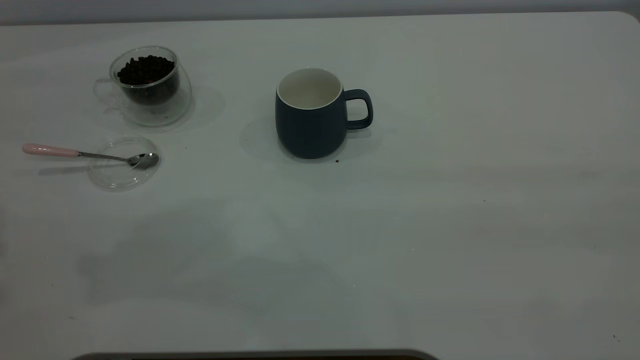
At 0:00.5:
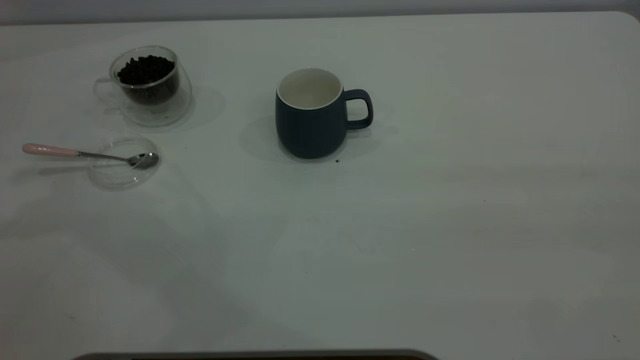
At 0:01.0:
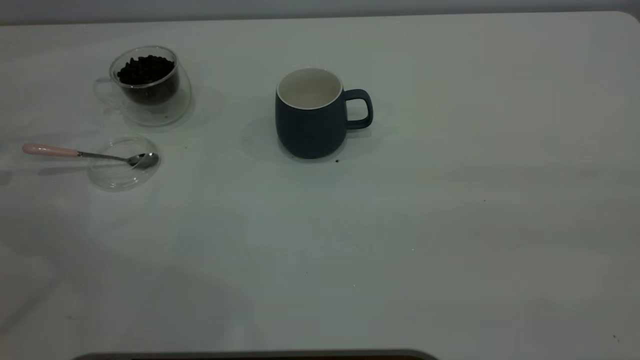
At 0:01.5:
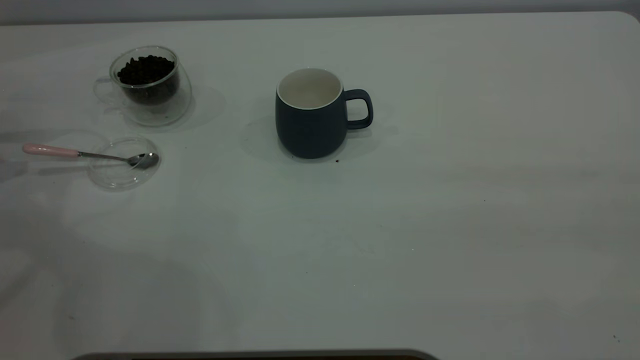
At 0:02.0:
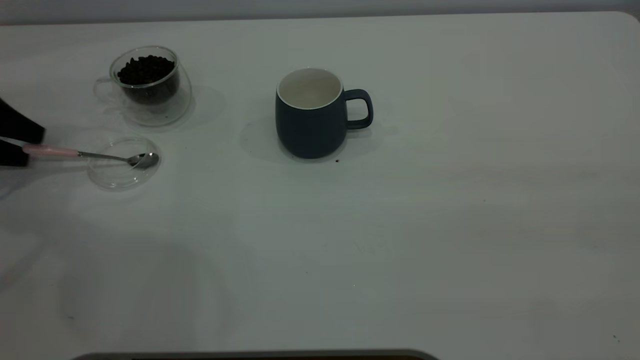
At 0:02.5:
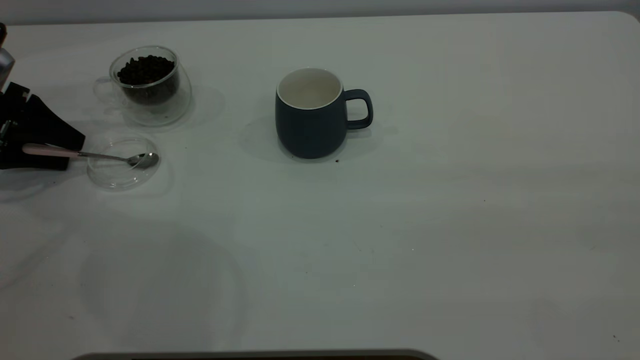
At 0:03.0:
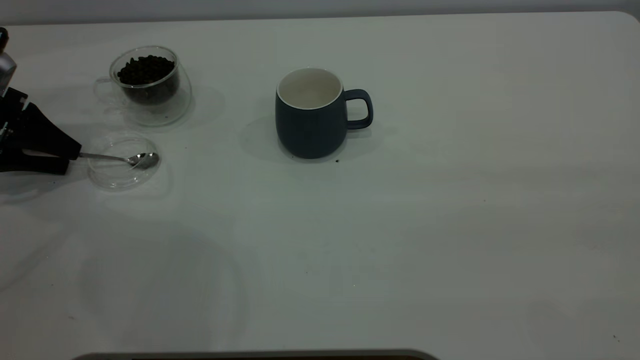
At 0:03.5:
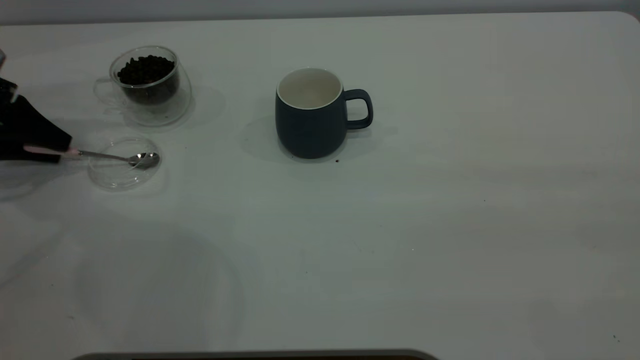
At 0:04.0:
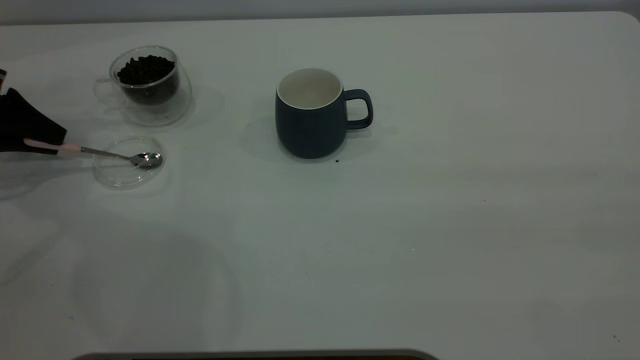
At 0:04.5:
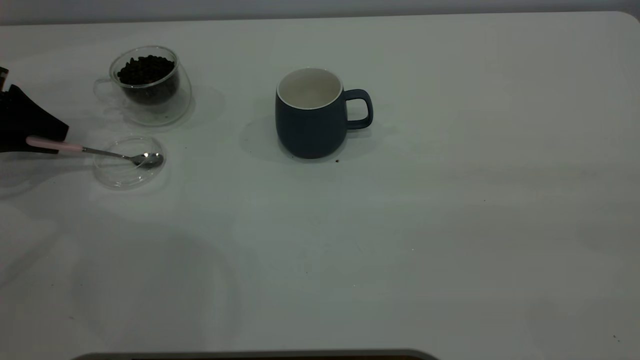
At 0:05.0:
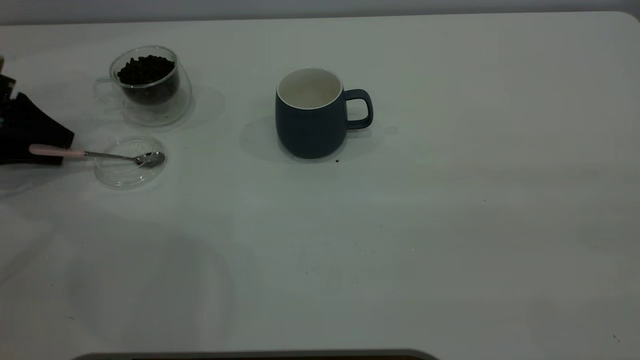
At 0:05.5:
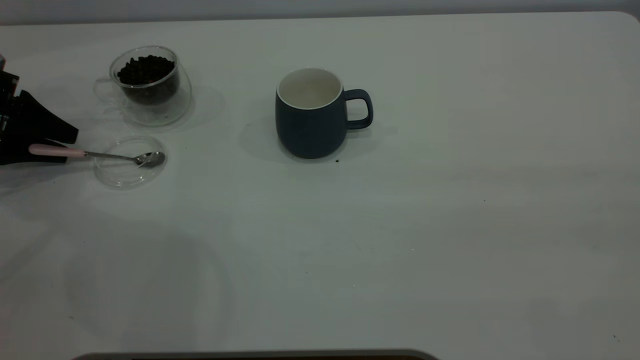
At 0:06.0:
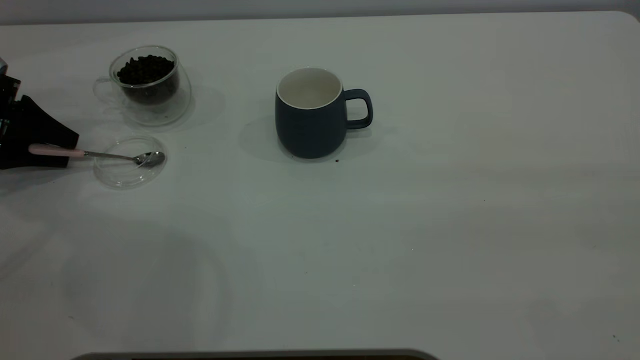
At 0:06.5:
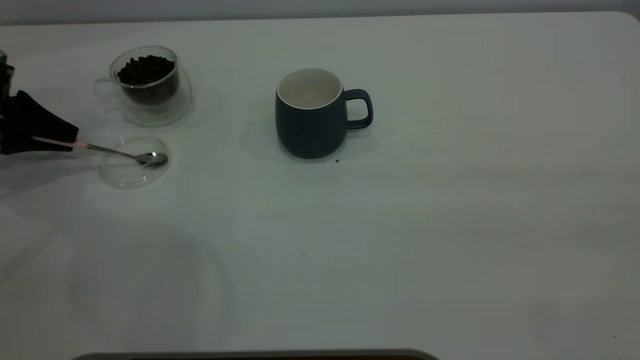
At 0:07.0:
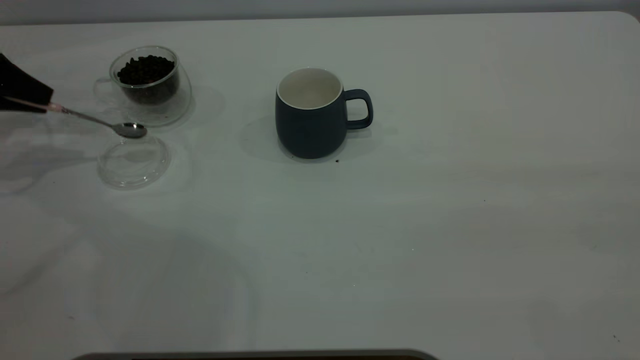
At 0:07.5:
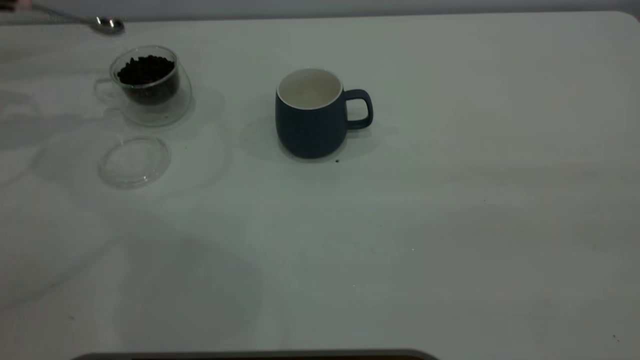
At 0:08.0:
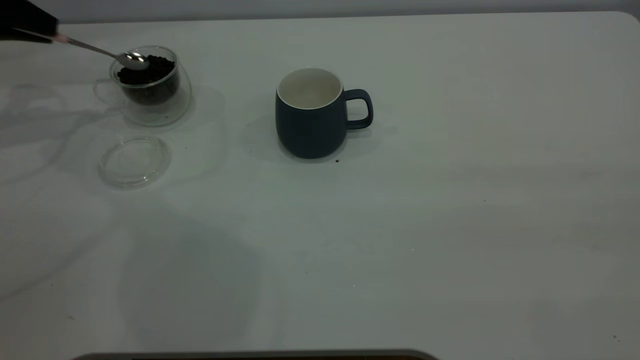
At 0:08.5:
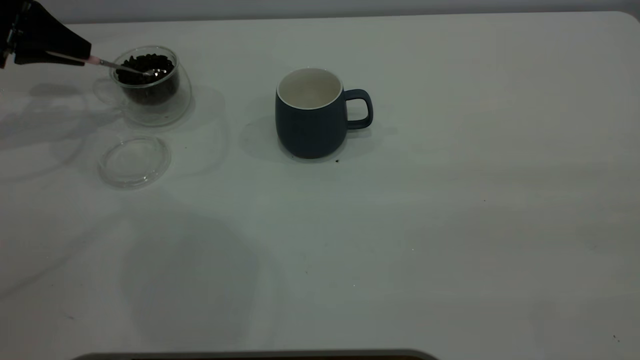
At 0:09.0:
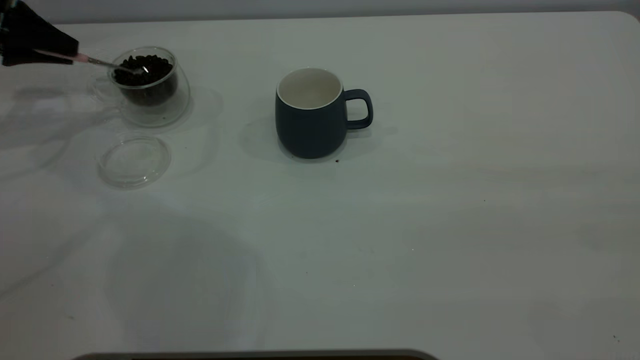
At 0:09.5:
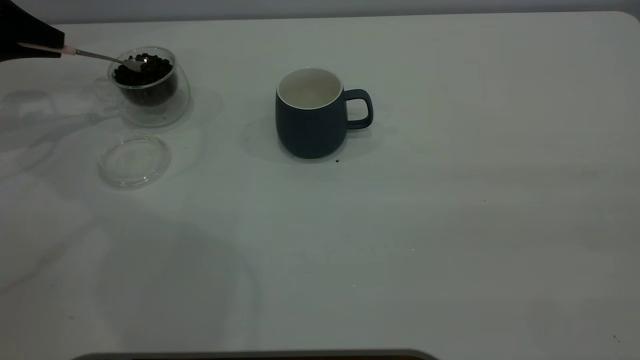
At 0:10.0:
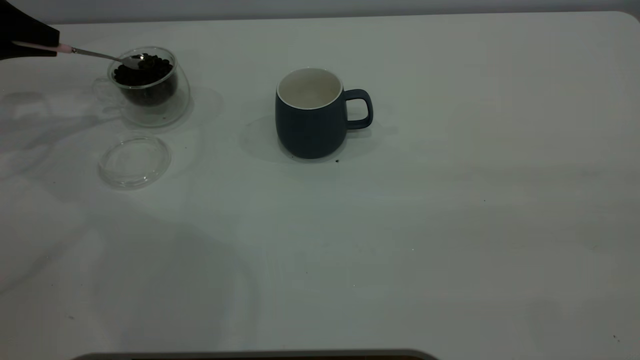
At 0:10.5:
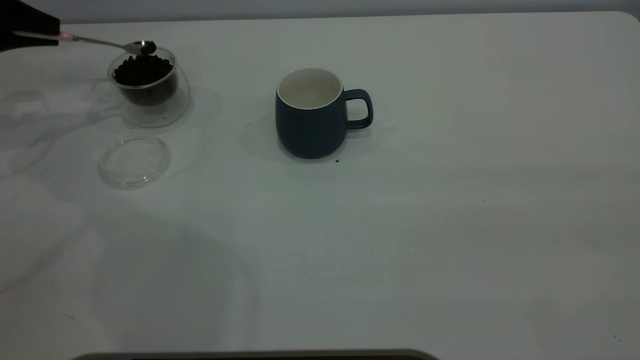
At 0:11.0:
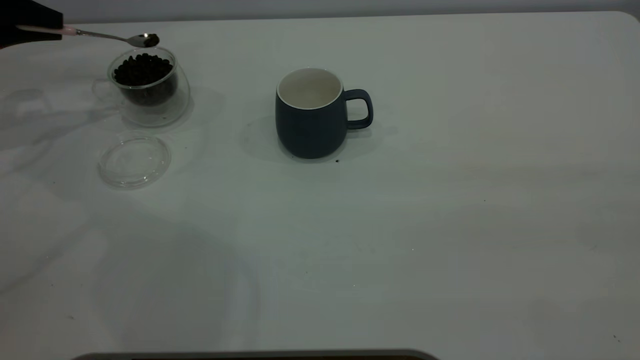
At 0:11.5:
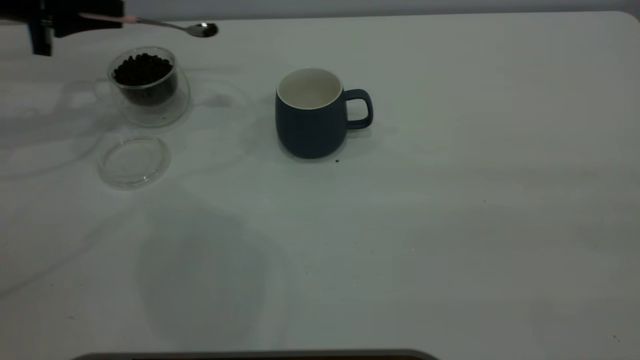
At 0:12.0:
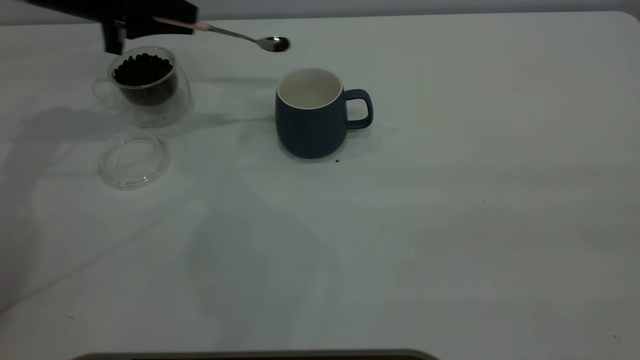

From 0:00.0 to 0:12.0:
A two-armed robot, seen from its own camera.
Task of the whole recording: the right gripper place the grey cup in the center of the table, the left gripper take the pink spoon from the cup lid and scoop out the coffee beans from the coffee cup and put them into the grey cup, the left gripper put the spoon back into the cup lid.
Step, from 0:00.0 to 0:07.0: Pick up the spoon.
From 0:00.0 to 0:02.0: The left gripper moves downward and forward, about 30 cm.
From 0:02.0 to 0:04.0: The left gripper closes up.
From 0:04.0 to 0:06.0: The left gripper opens.
From 0:06.0 to 0:08.0: The left gripper goes approximately 15 cm upward and forward, and closes up.
From 0:08.0 to 0:10.0: There are only small adjustments of the grippers.
From 0:10.0 to 0:12.0: The left gripper travels to the right by roughly 15 cm.

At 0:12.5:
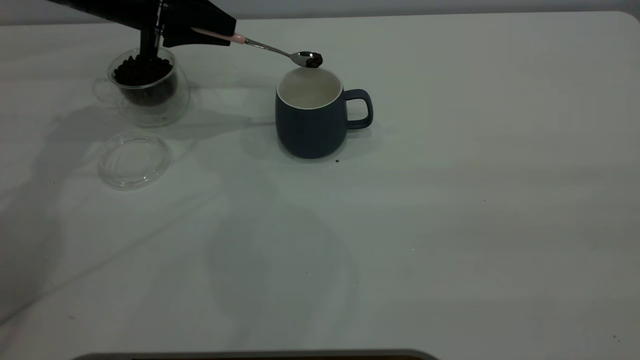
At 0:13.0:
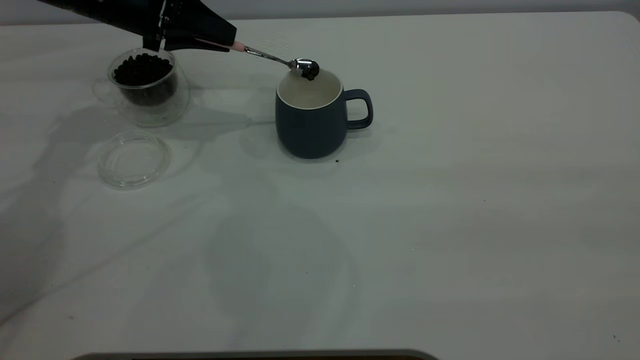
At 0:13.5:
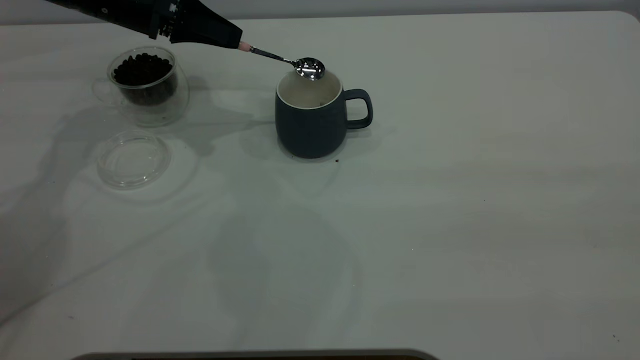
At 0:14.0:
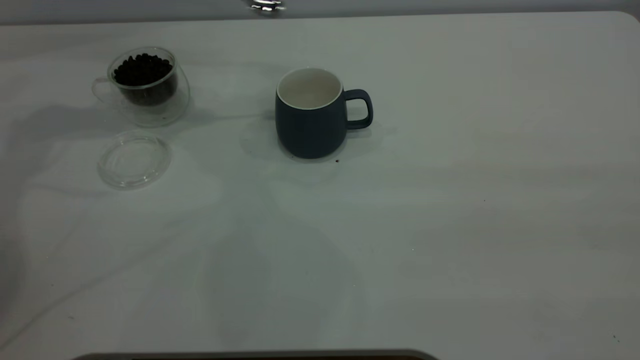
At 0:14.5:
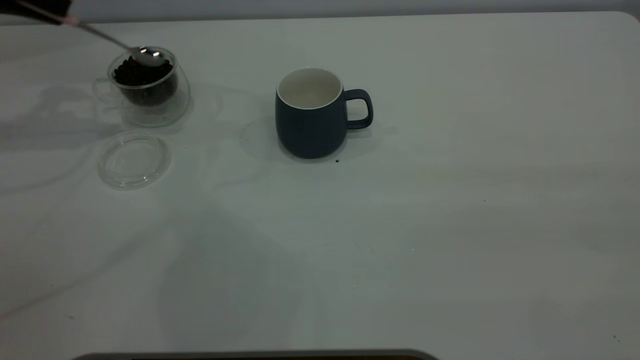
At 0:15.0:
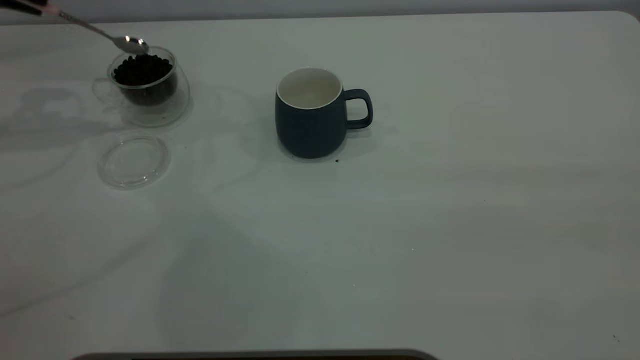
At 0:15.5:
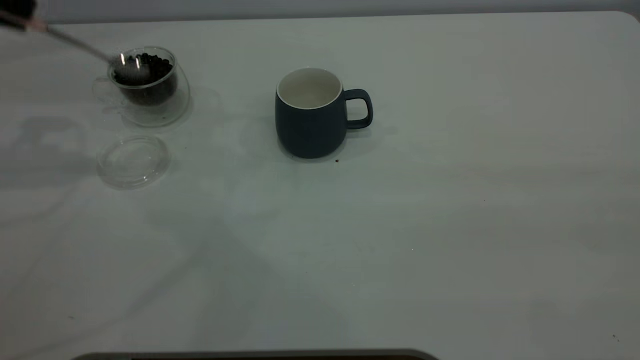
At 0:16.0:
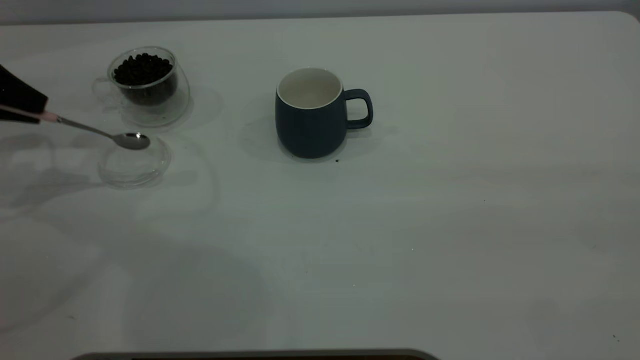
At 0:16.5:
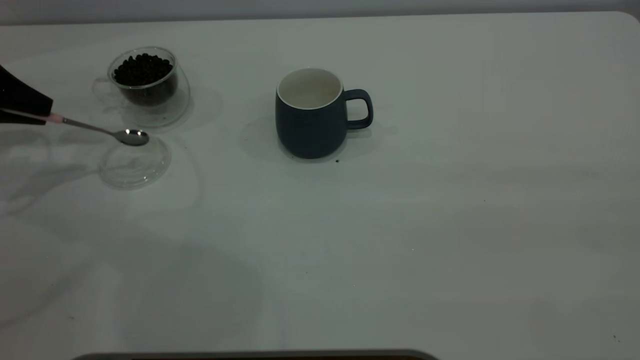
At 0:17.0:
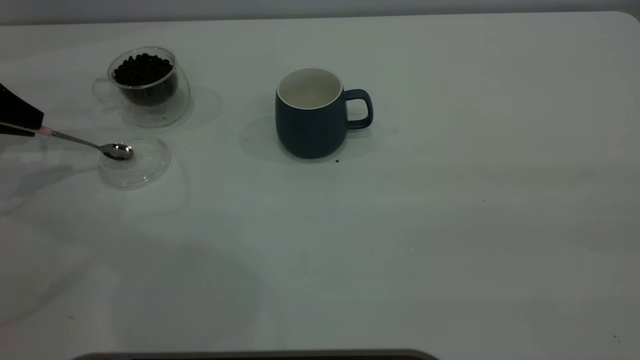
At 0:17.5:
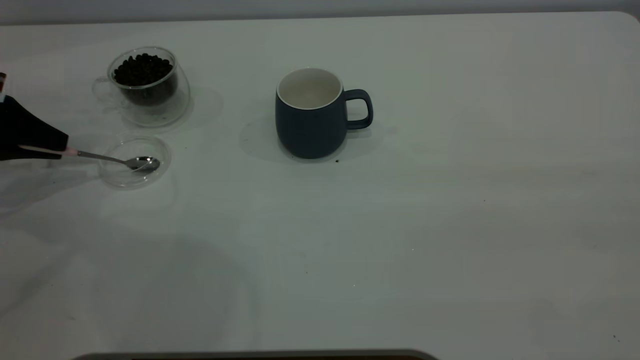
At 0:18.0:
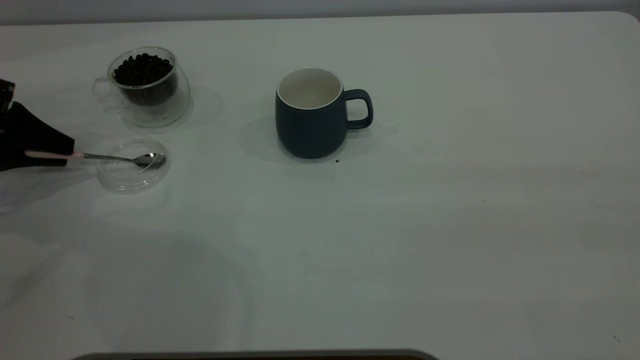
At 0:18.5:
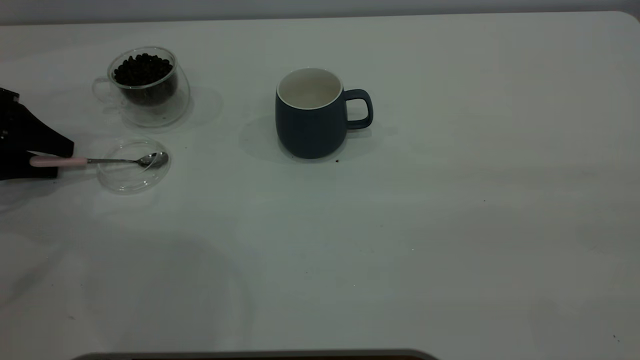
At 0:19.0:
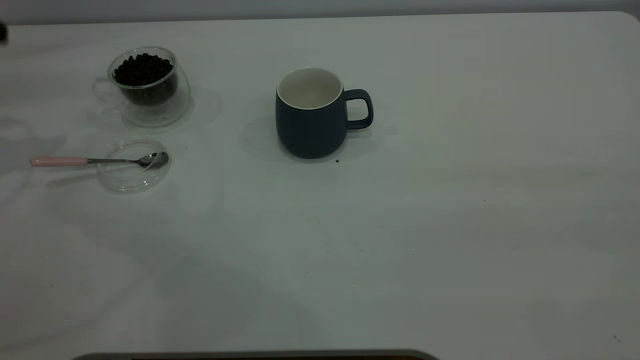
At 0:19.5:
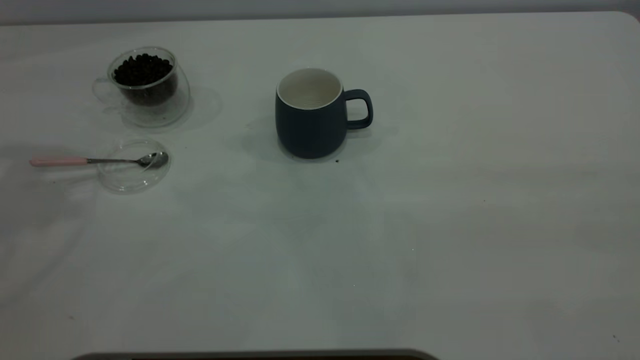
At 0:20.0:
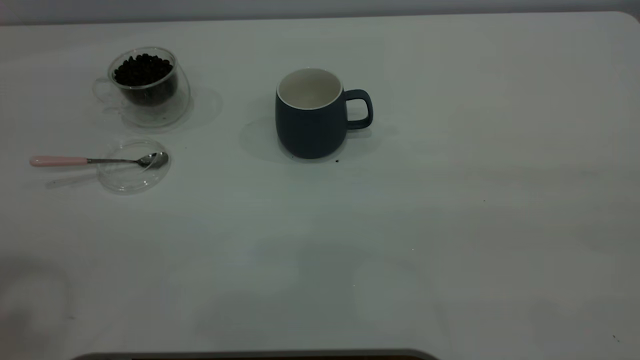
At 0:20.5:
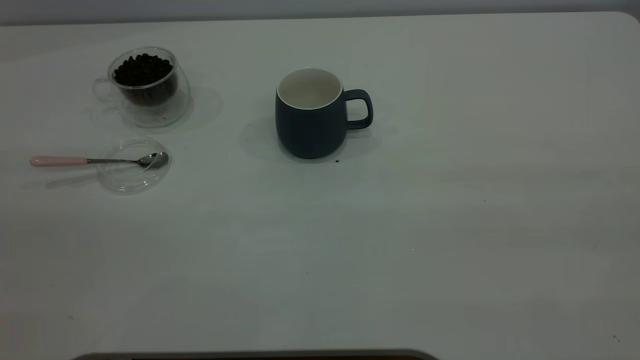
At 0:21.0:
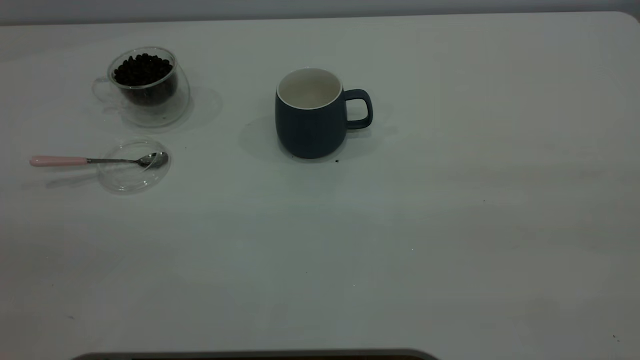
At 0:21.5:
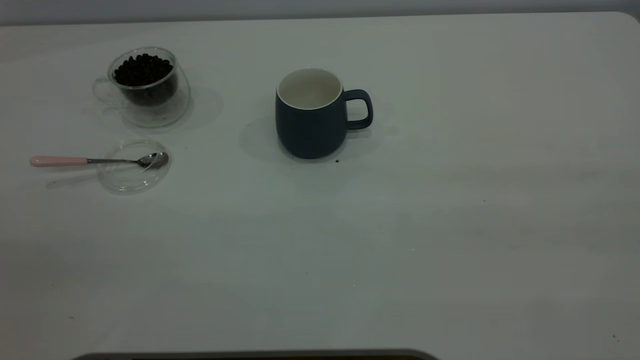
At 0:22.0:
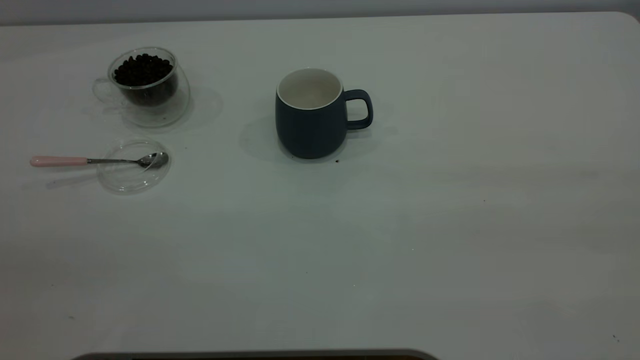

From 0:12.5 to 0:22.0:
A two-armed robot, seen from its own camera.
Task of the whole recording: the right gripper place the grey cup in the center of the table, the left gripper take the pink spoon from the cup lid and scoop out the coffee beans from the coffee cup and put them into the grey cup, the left gripper put the spoon back into the cup lid.
Step, from 0:14.0 to 0:18.5: Place the spoon back in its original place.
From 0:12.5 to 0:14.5: The left gripper is displaced to the left and upward by roughly 15 cm.
From 0:14.5 to 0:16.5: The left gripper is displaced downward and backward by roughly 10 cm.
From 0:16.5 to 0:18.0: The left gripper moves downward, about 5 cm.
From 0:18.0 to 0:20.0: The left gripper goes roughly 40 cm upward and backward, and opens its fingers.
